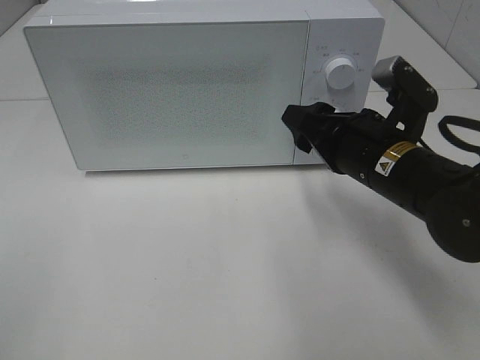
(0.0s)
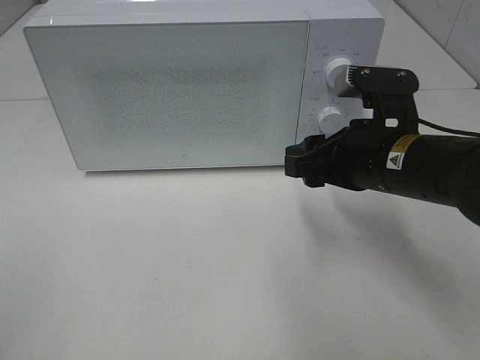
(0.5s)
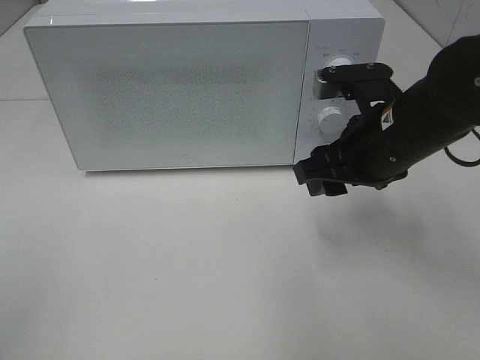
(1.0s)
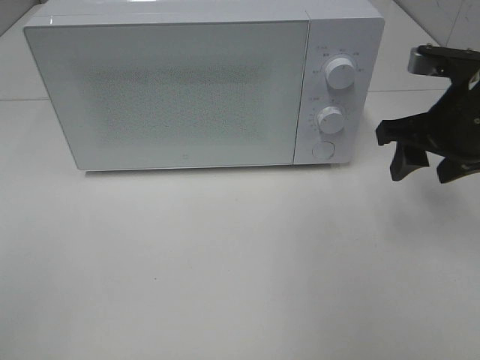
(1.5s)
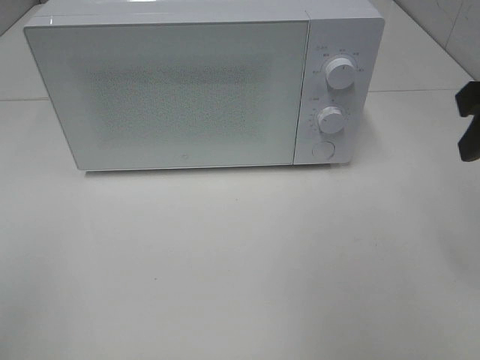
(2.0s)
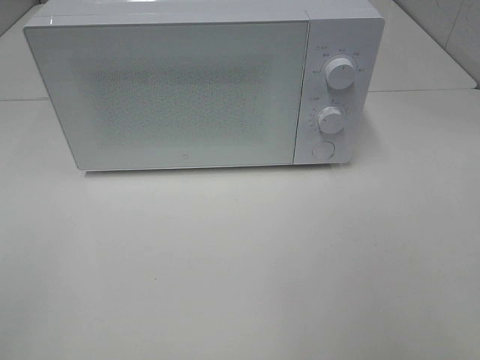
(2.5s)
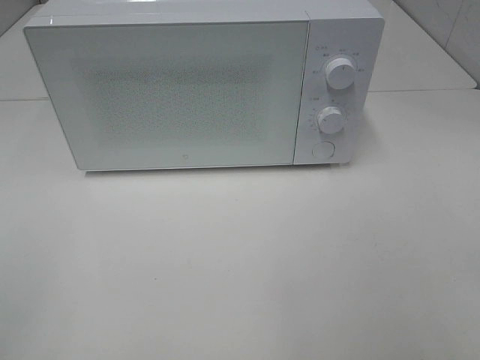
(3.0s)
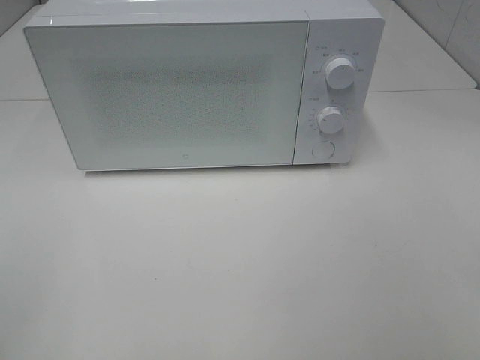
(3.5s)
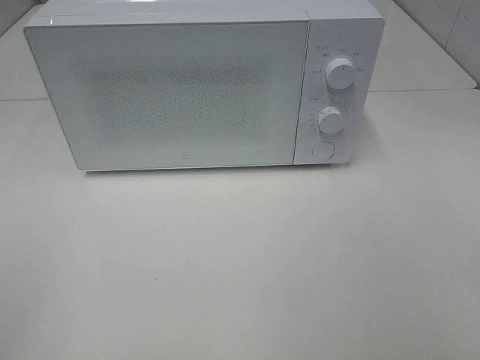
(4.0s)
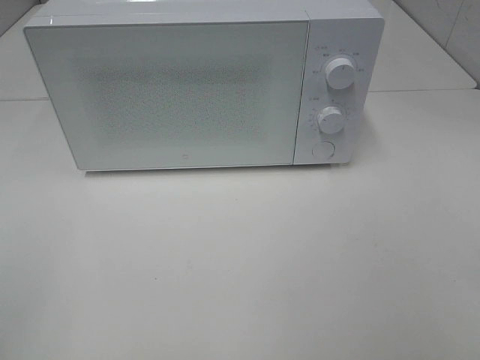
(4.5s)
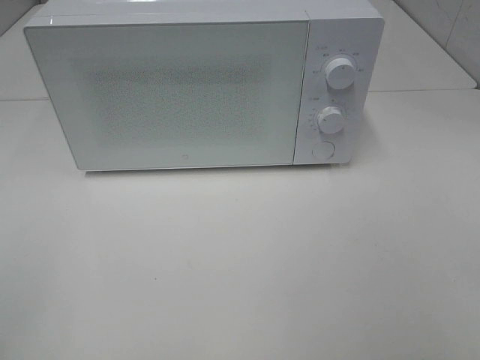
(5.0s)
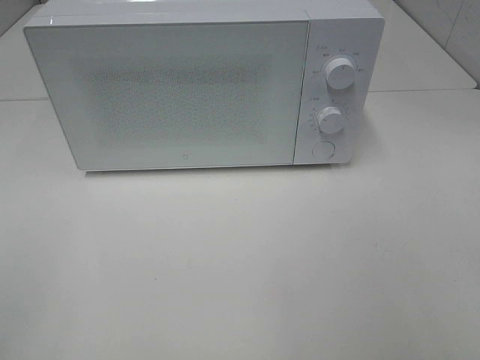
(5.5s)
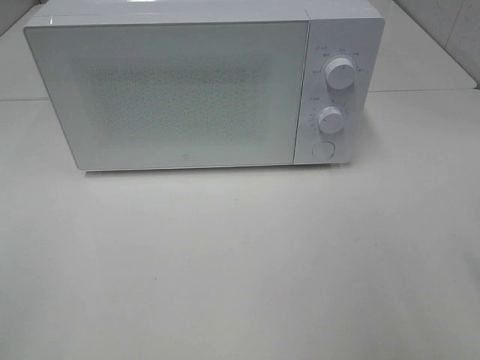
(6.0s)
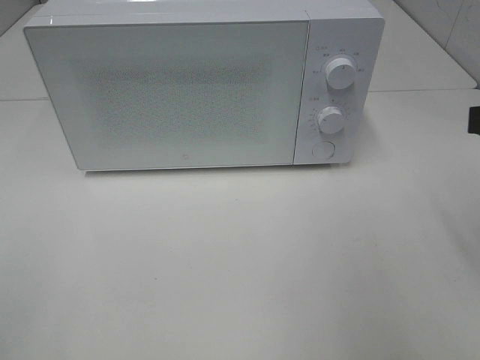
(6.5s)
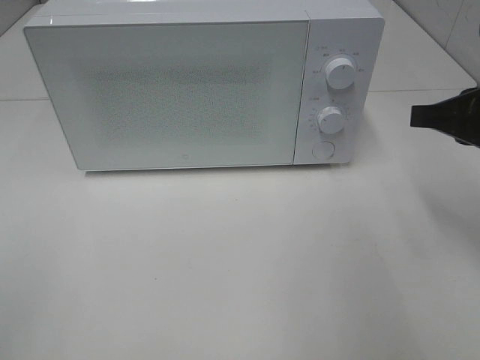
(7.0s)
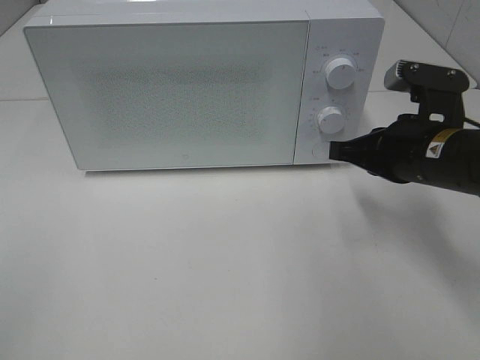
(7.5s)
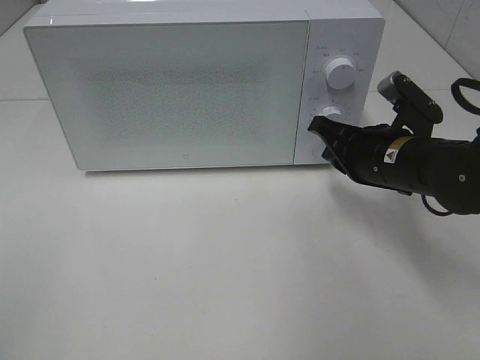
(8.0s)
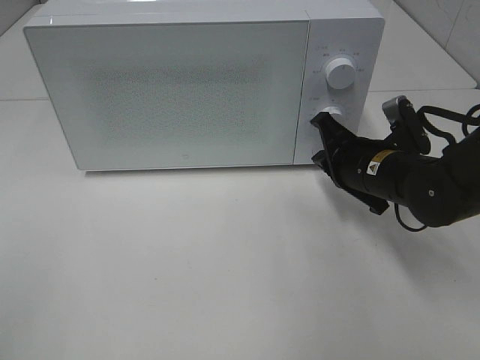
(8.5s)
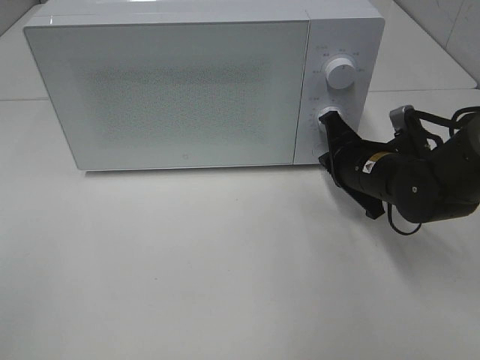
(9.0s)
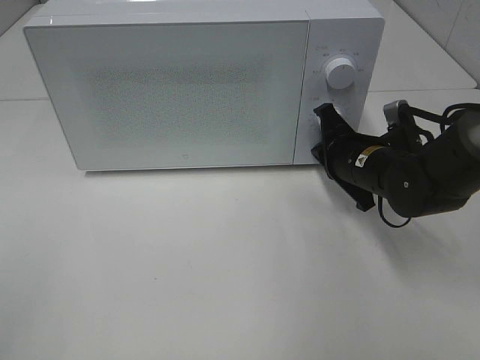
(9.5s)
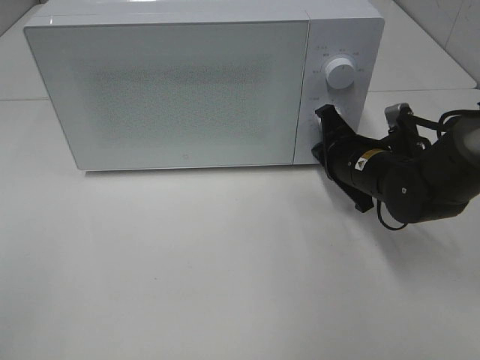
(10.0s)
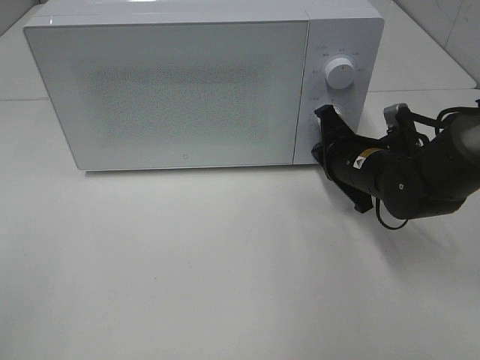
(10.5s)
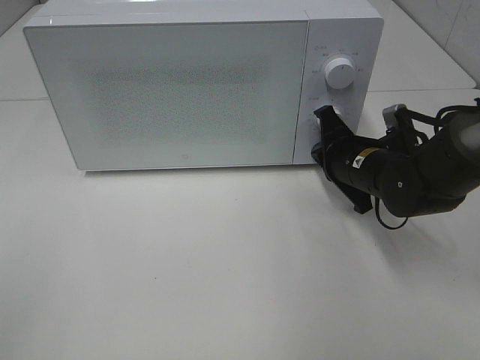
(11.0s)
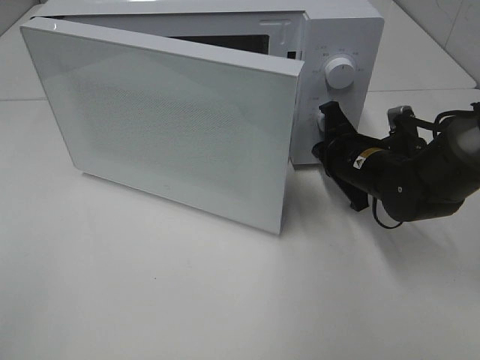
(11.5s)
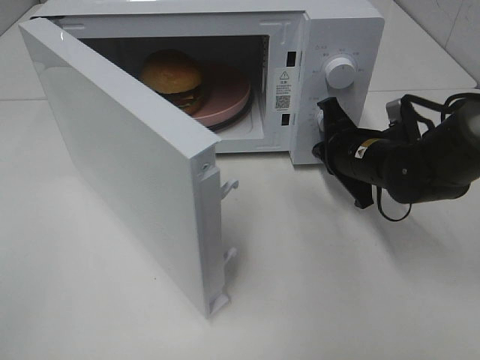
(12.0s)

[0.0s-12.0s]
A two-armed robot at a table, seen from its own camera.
Task of the whole recording: Heat the burger.
0.0s to 2.0s: The right gripper moves upward and to the right, approximately 20 cm.
2.0s to 4.0s: The right gripper shifts about 20 cm backward.
6.0s to 8.0s: The right gripper travels forward, downward and to the left by some 25 cm, and closes up.
8.0s to 10.0s: The right gripper shifts by about 5 cm.

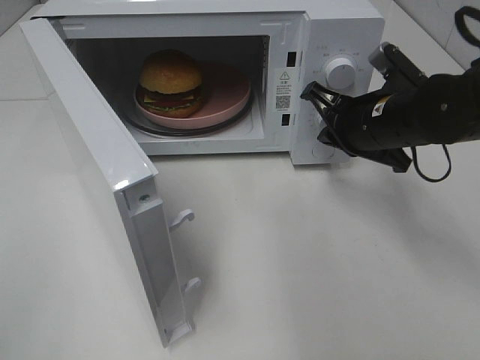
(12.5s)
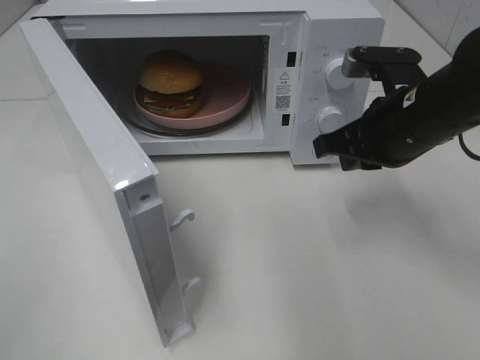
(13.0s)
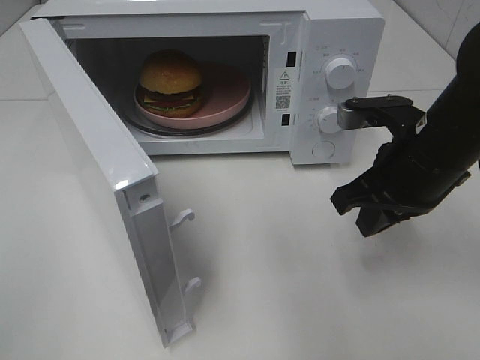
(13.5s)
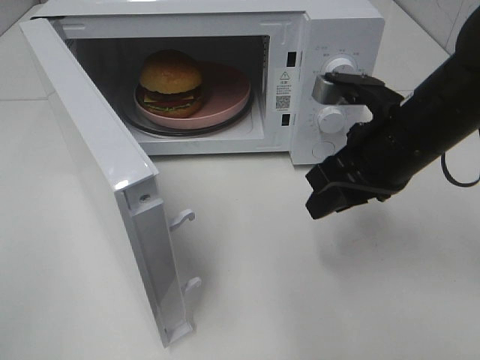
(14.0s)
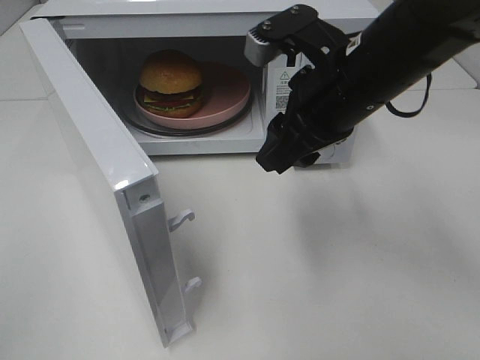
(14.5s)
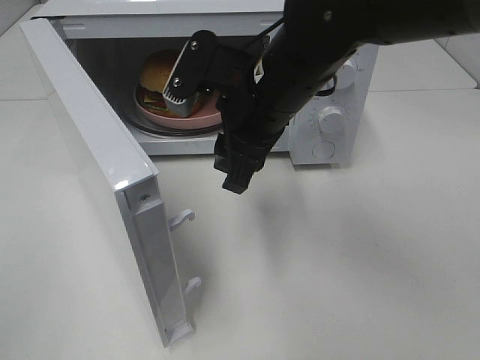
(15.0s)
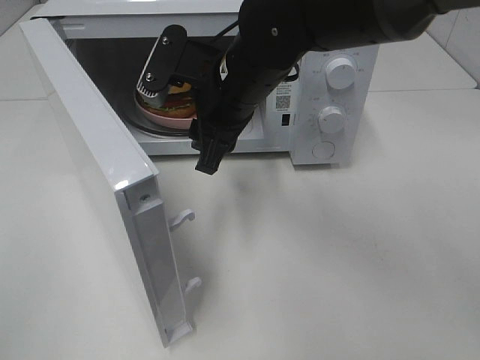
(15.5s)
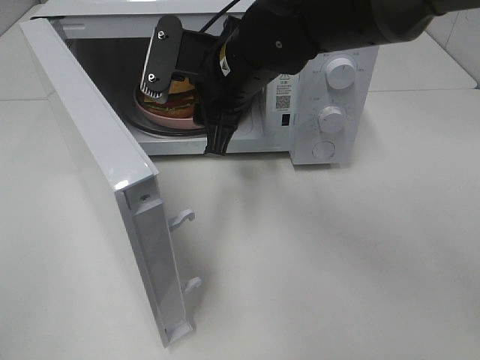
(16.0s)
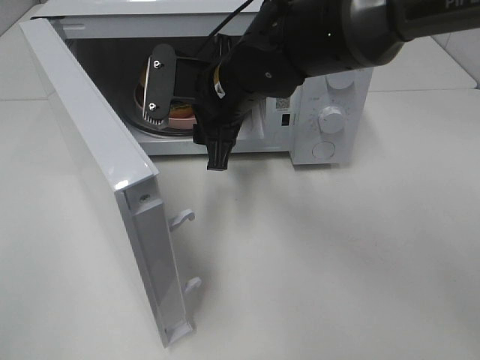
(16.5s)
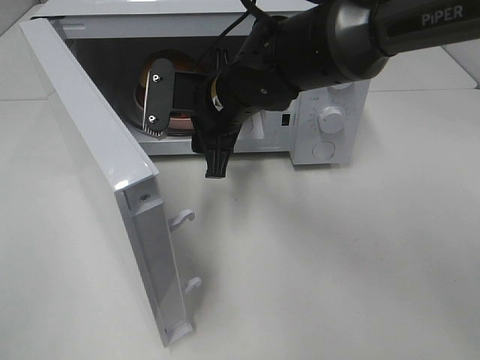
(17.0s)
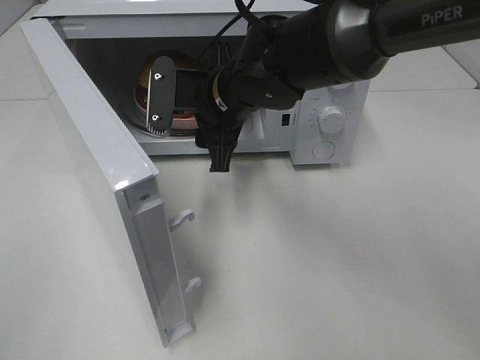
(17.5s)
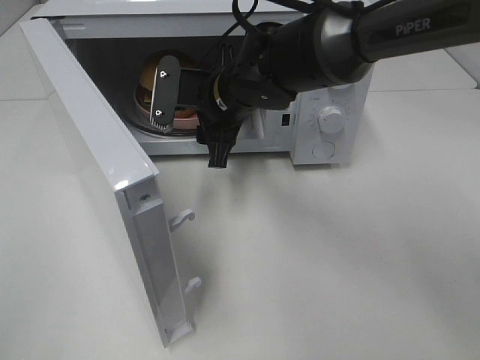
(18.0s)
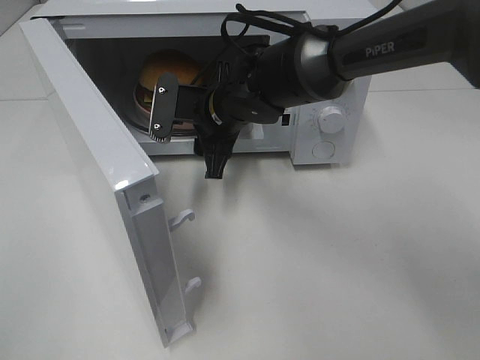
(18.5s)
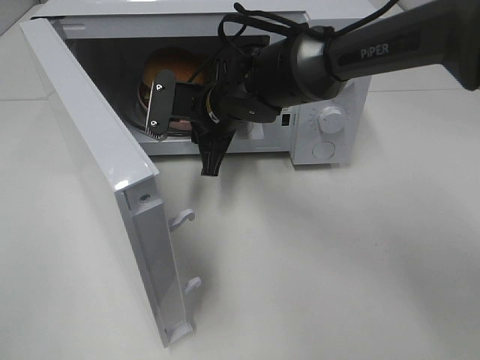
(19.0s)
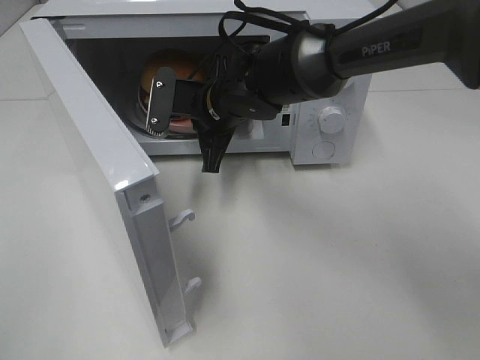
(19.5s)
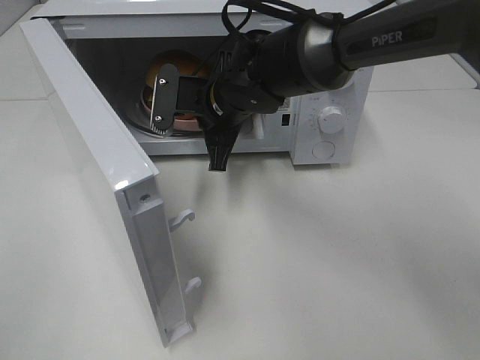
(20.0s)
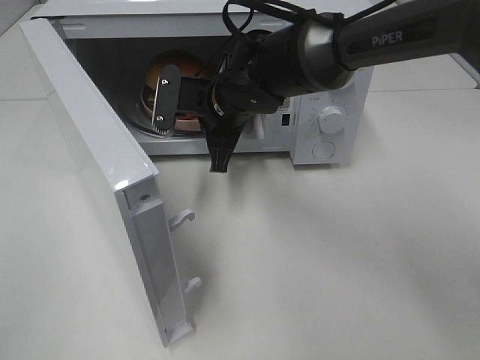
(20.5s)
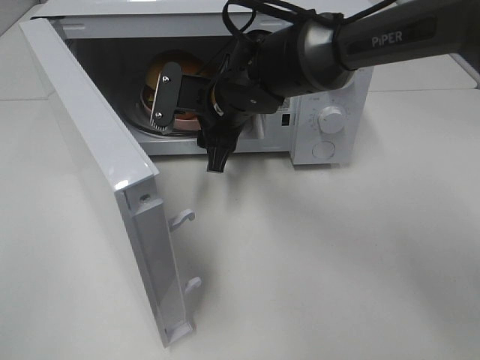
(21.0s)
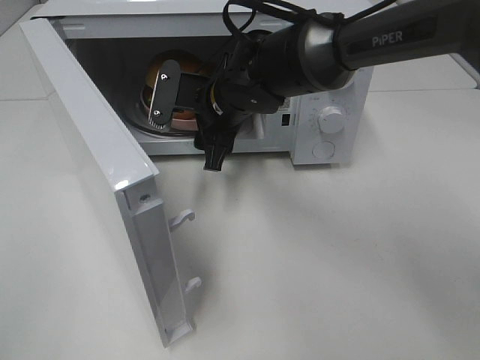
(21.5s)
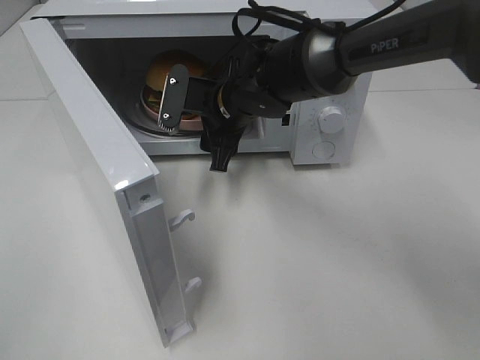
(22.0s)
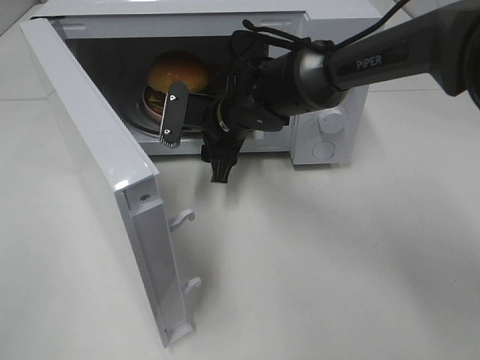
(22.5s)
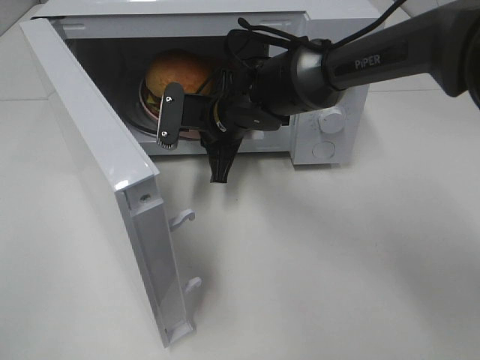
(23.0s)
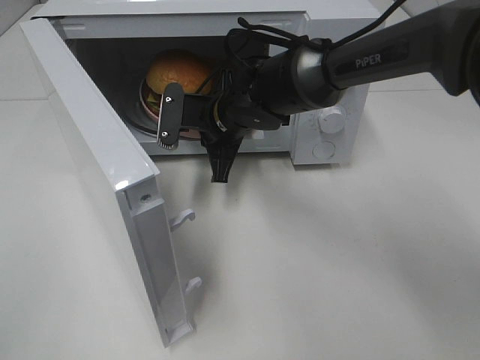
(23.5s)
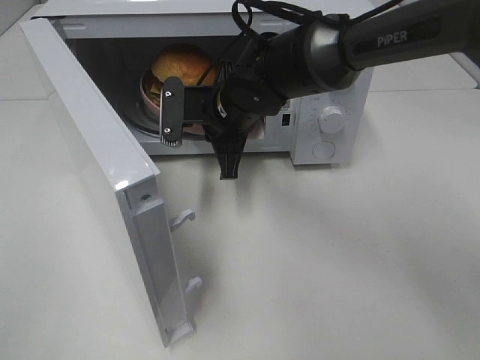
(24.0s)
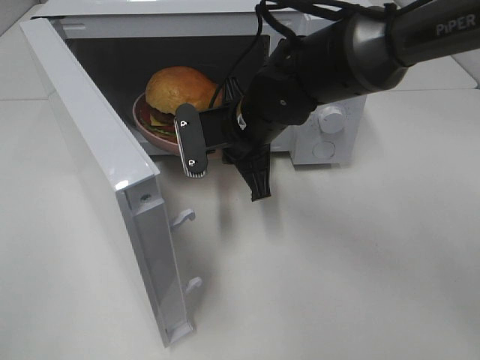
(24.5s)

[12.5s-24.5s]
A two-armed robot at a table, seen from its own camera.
Task of the whole recording: Heat the burger.
Step, 12.5s to 23.0s: Right hand: grab the plate with the hamburger.
12.5s to 14.5s: The right gripper travels upward, to the left and backward by approximately 10 cm, and opens.
14.5s to 16.5s: The right gripper goes about 15 cm to the left, forward and downward.
16.5s to 18.5s: The right gripper heads downward, covering roughly 5 cm.
18.5s to 20.5s: The right gripper closes up.
20.5s to 22.5s: The right gripper opens.
22.5s to 24.5s: The right gripper moves about 5 cm, and closes its fingers.

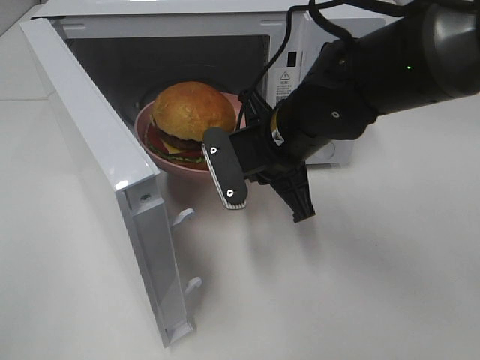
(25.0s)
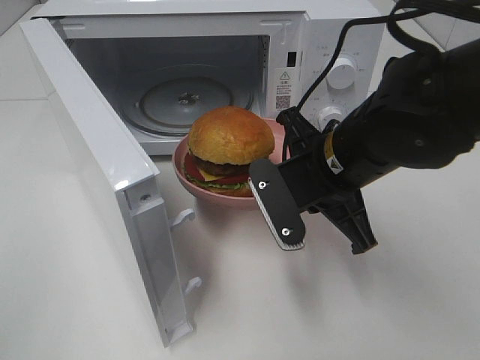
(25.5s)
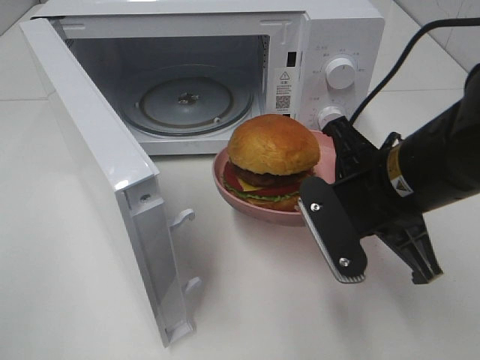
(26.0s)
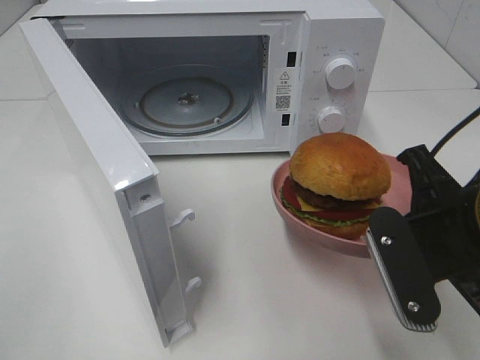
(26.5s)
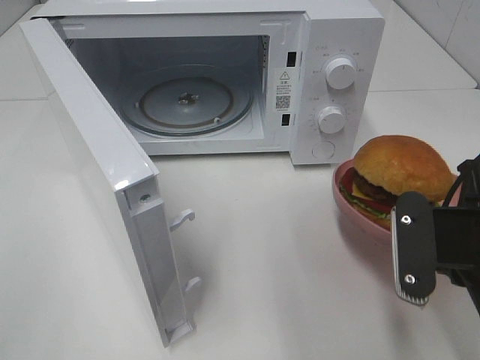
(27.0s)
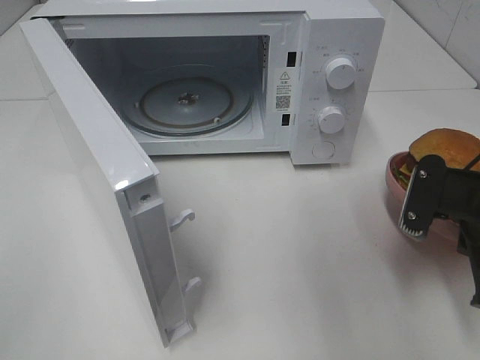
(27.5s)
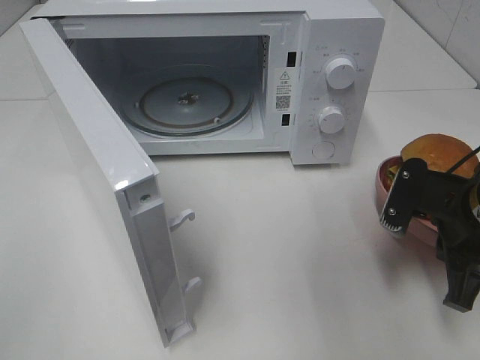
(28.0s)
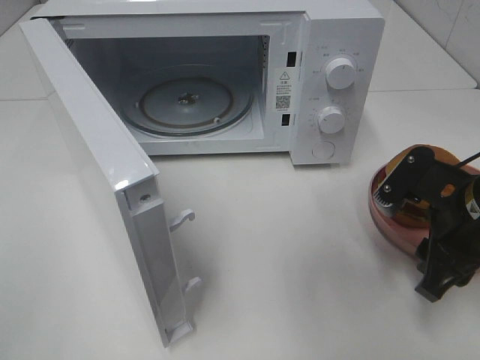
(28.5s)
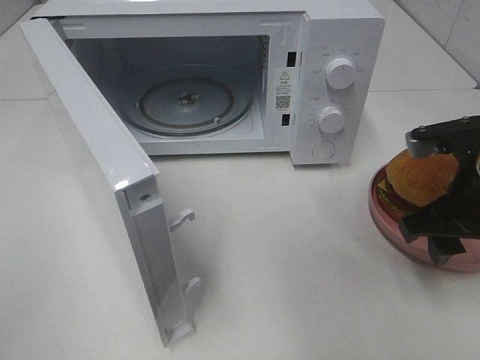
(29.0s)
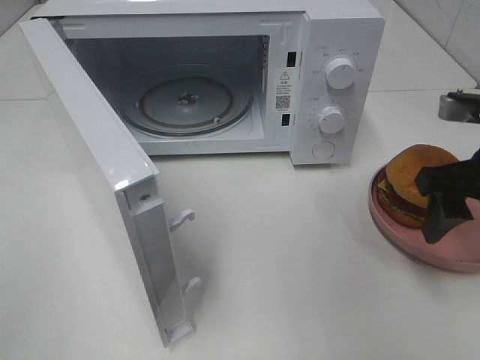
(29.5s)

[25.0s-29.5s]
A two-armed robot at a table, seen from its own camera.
Task of the whole recording: Heat the burger.
Step, 25.0s to 28.0s: Right hand: place the plate on the table.
25.0s to 27.0s: The right gripper goes roughly 20 cm to the right and backward.
27.0s to 29.5s: The right gripper goes roughly 10 cm forward, and opens its fingers.
